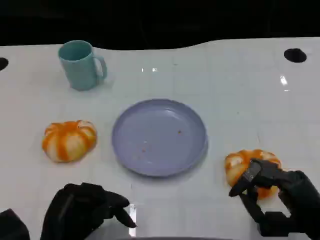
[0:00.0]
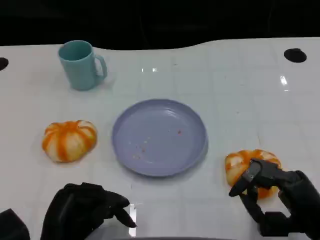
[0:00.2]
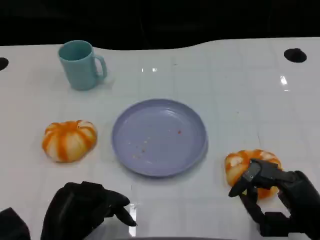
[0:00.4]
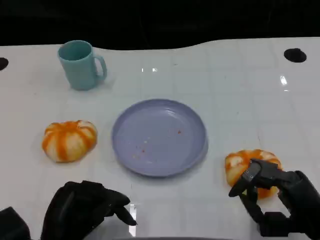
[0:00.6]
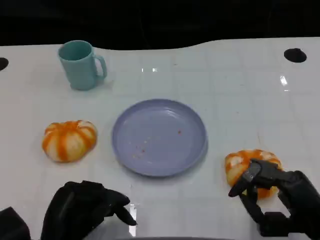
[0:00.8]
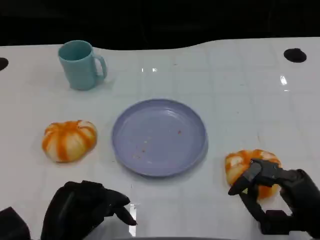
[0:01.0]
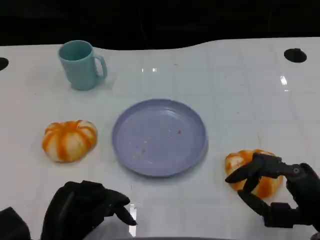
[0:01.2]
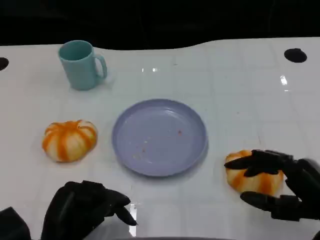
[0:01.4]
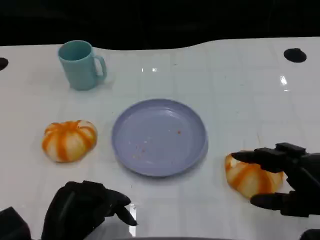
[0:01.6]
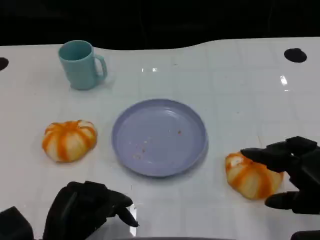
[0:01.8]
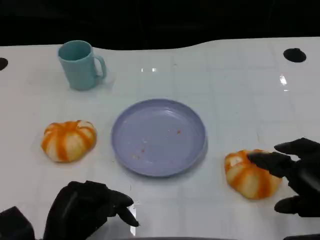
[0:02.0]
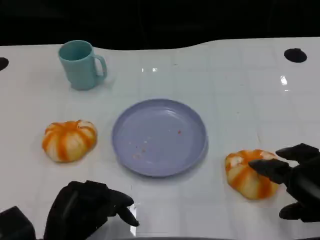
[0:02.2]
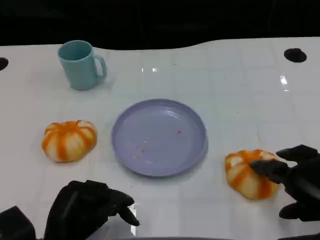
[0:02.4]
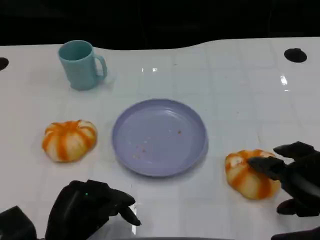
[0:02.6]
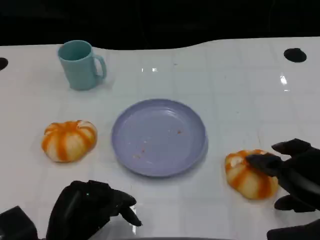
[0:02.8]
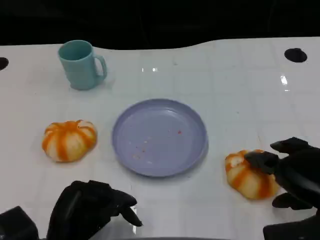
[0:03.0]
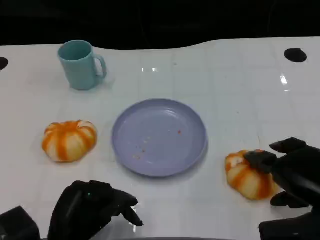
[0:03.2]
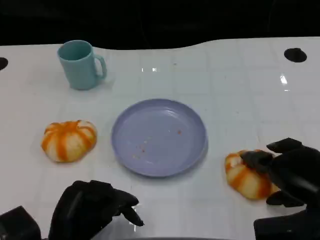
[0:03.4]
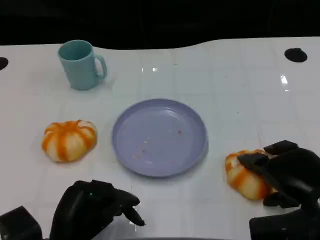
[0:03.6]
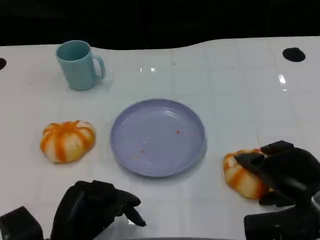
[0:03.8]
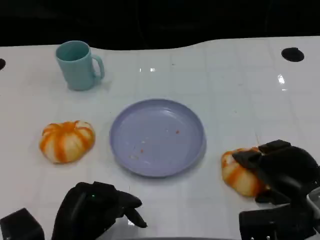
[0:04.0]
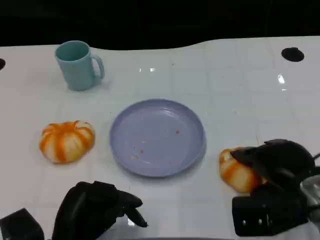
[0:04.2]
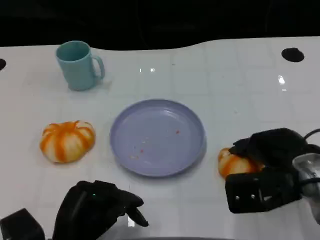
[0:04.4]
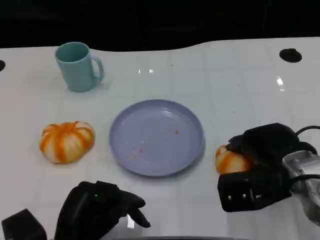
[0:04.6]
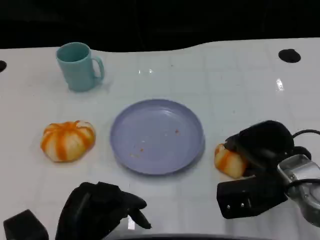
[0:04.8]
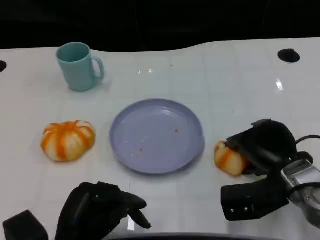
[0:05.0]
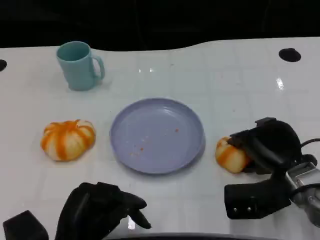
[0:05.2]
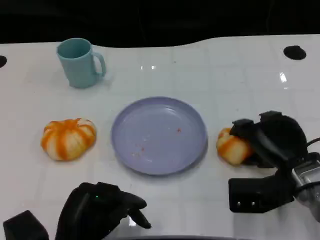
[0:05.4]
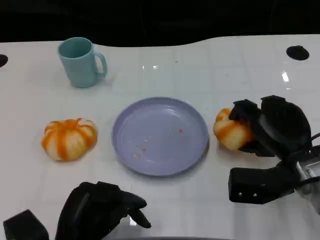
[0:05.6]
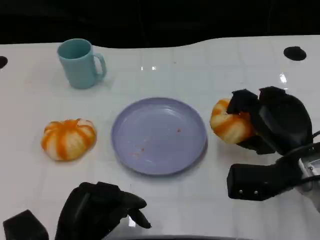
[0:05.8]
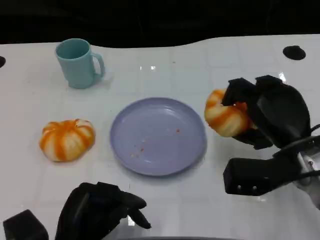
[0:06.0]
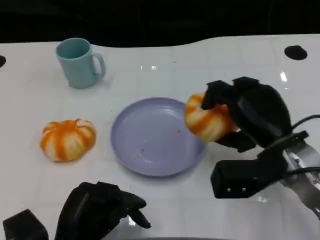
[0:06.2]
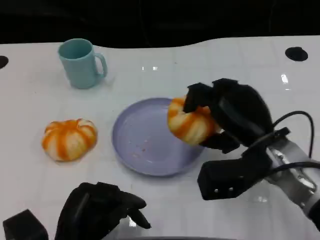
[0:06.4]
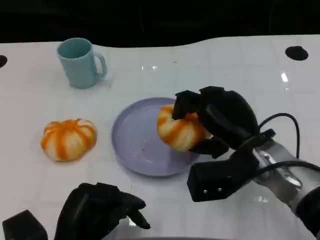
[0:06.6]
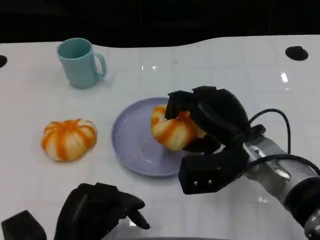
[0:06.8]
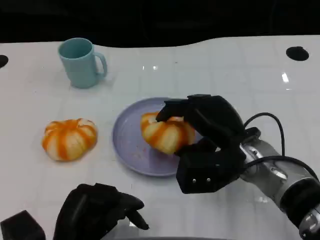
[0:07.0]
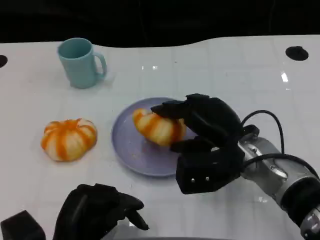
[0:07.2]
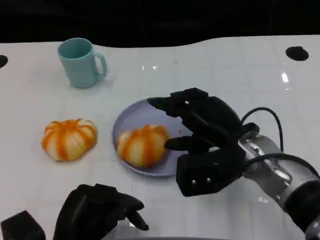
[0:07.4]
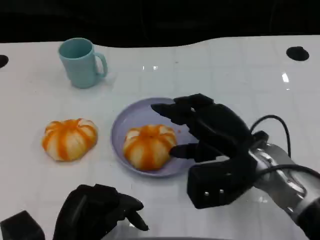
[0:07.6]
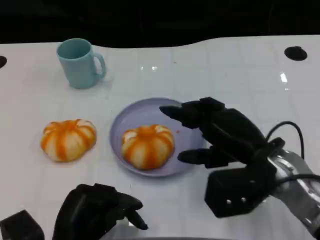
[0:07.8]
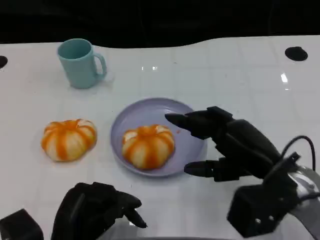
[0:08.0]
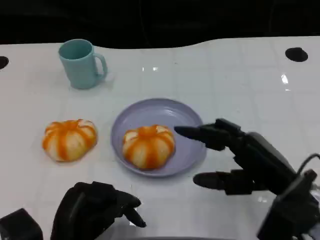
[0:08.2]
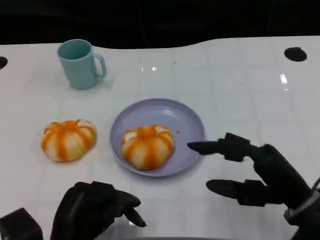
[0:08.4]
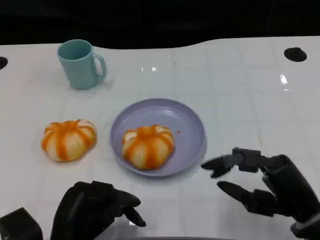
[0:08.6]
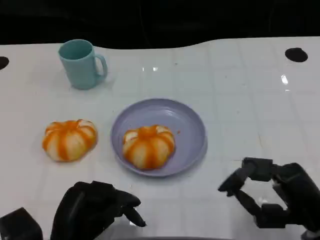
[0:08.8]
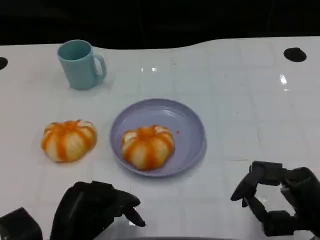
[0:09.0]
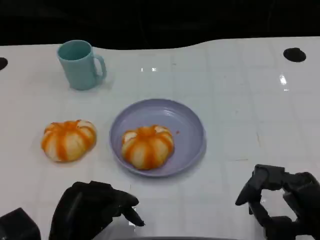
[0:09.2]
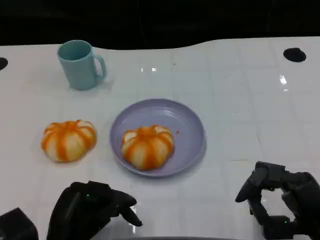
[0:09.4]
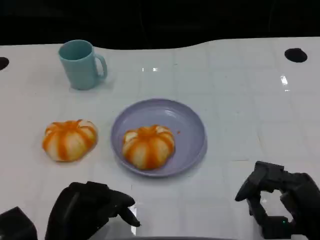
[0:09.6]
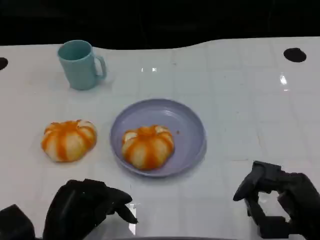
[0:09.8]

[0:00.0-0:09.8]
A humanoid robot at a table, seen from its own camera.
Task of the whole recording: Grasp the bread from the table and place it into the plate.
0:02.8 to 0:04.2: The right hand shifts by approximately 5 cm.
0:05.6 to 0:07.0: The right hand is displaced to the left by about 10 cm.
0:07.0 to 0:08.4: The right hand travels to the right and backward by about 15 cm.
0:08.4 to 0:09.8: The right hand moves approximately 5 cm.

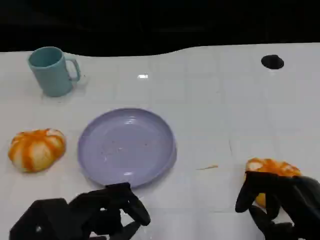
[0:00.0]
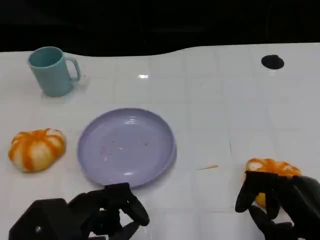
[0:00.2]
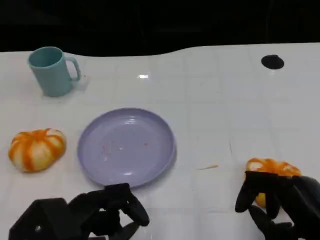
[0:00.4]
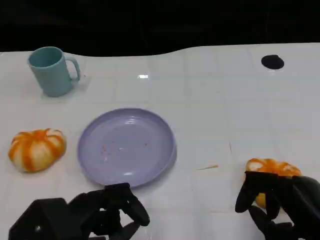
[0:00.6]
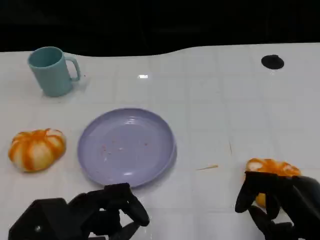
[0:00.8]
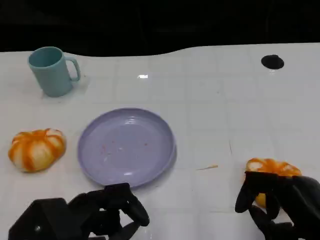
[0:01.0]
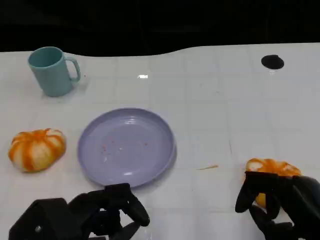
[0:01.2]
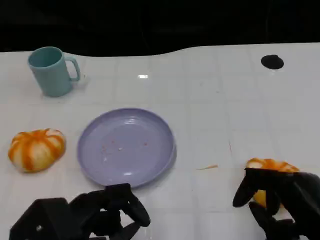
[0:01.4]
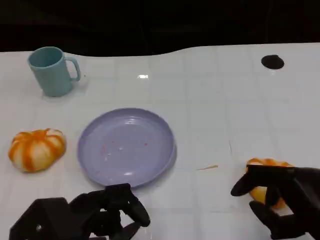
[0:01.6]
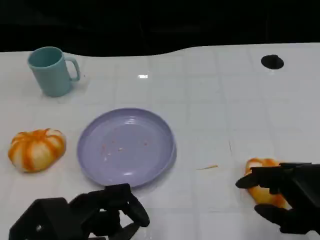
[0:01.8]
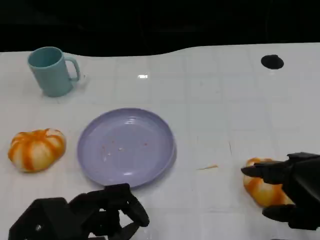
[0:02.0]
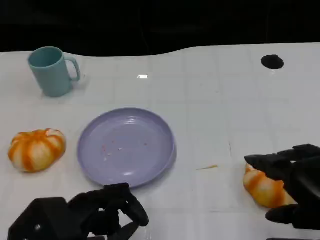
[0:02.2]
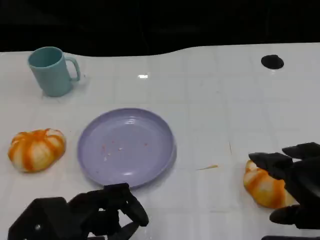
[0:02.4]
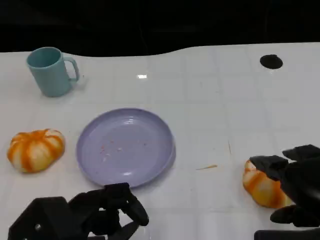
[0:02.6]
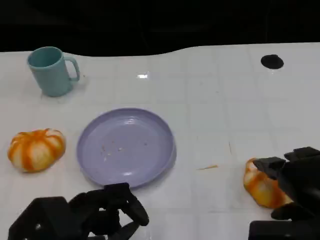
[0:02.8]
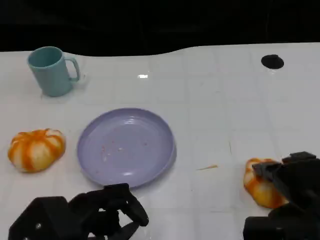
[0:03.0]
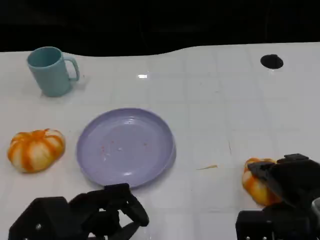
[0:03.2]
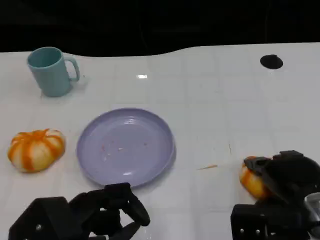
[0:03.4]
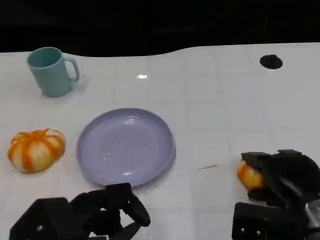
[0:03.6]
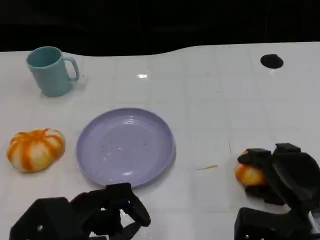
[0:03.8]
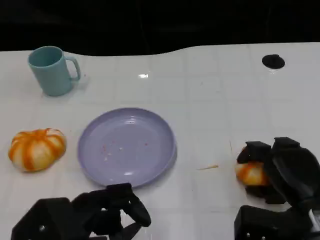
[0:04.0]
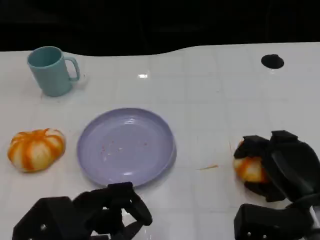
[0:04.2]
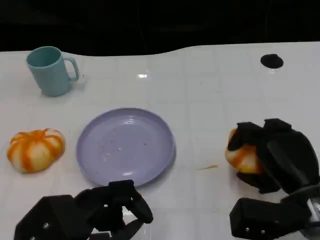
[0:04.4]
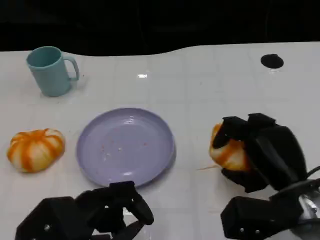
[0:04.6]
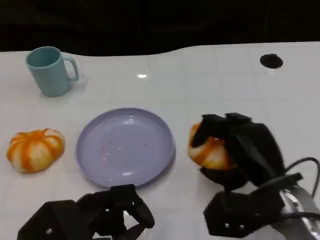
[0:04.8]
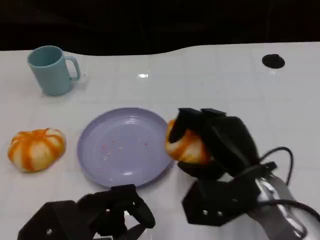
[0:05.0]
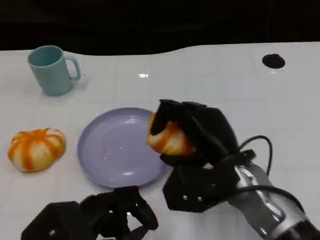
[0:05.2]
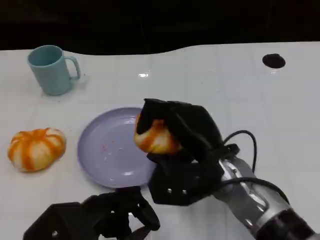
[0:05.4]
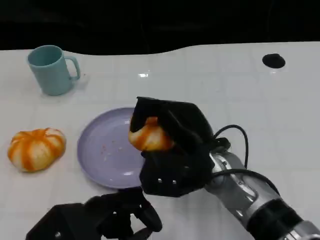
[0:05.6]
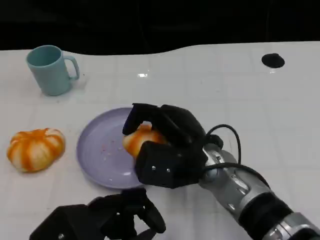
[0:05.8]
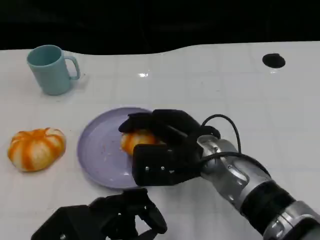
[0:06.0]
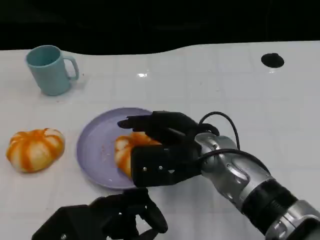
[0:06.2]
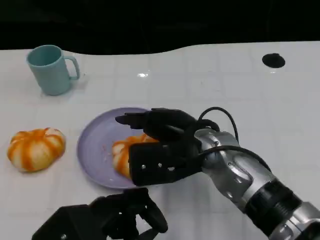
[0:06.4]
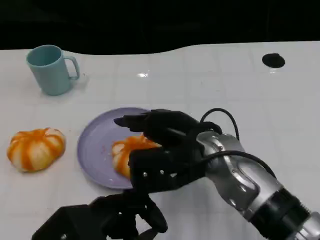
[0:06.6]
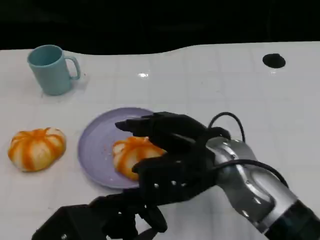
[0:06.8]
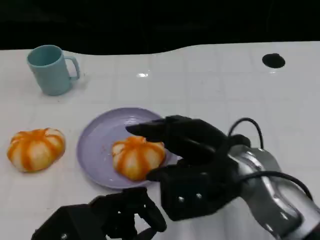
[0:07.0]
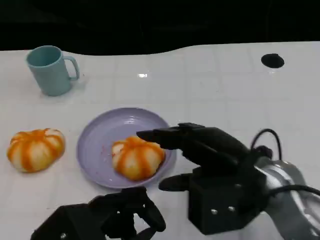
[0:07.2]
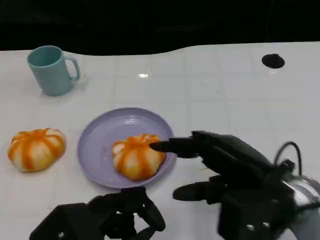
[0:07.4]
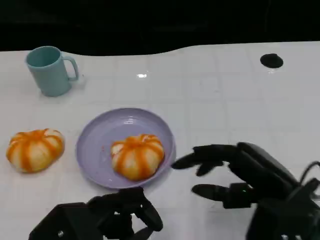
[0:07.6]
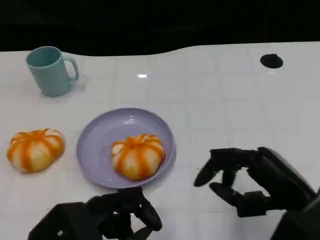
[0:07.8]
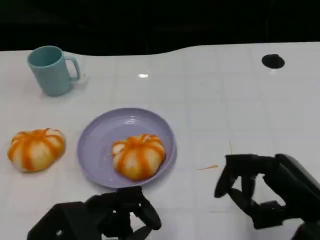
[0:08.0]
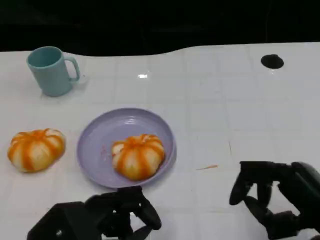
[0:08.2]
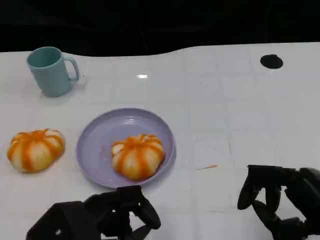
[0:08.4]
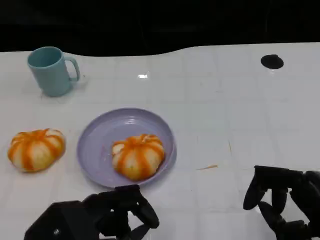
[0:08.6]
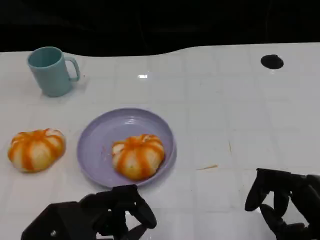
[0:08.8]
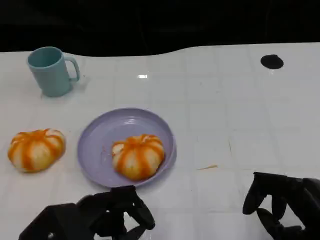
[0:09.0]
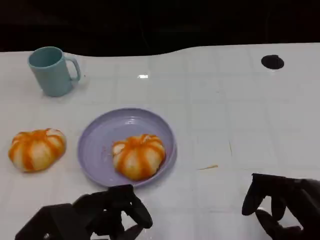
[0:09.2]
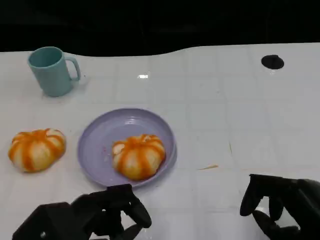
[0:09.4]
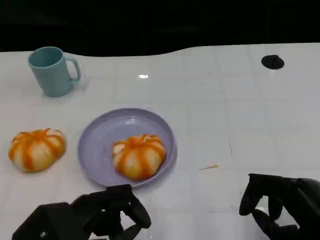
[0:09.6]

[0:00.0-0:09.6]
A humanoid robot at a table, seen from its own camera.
Task of the whole recording: Grasp the bread from the table and place it into the plate.
0:00.0 to 0:01.6: There are only small adjustments of the hands.
0:01.6 to 0:03.2: The right hand travels forward by some 5 cm.
0:03.2 to 0:04.8: The right hand shifts about 5 cm to the left.
0:04.8 to 0:06.4: The right hand is displaced to the left by some 10 cm.
0:06.4 to 0:08.0: The right hand moves to the right and backward, approximately 20 cm.
0:08.0 to 0:09.6: There are only small adjustments of the hands.

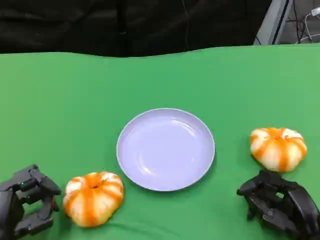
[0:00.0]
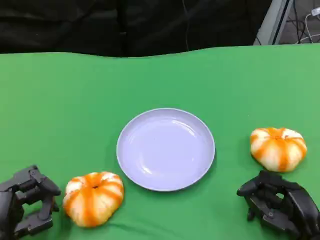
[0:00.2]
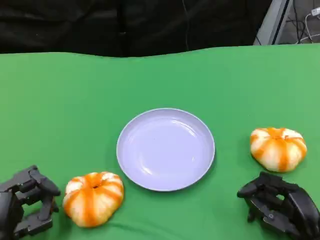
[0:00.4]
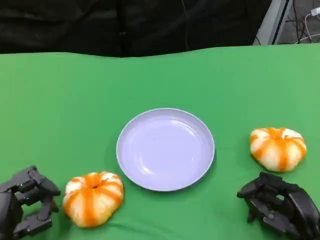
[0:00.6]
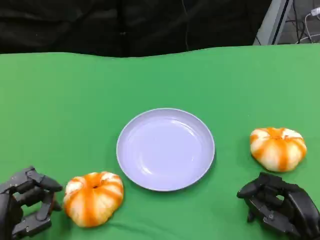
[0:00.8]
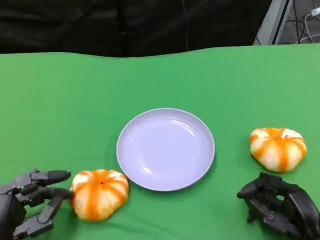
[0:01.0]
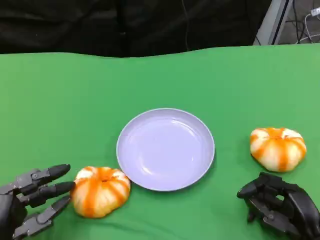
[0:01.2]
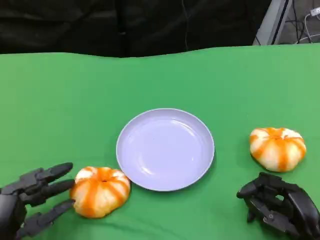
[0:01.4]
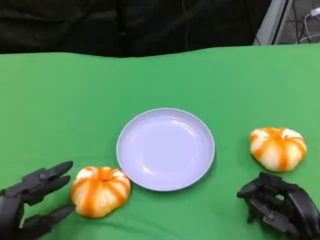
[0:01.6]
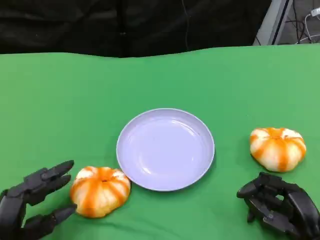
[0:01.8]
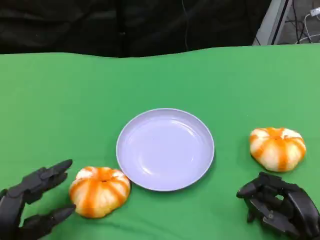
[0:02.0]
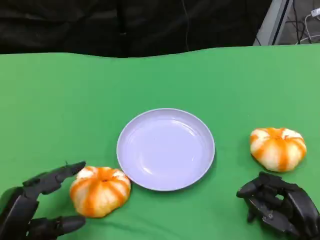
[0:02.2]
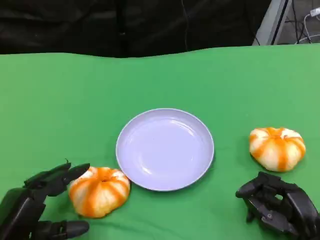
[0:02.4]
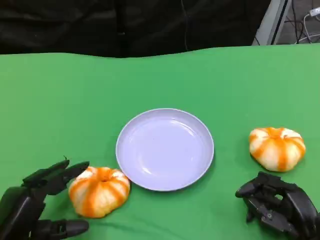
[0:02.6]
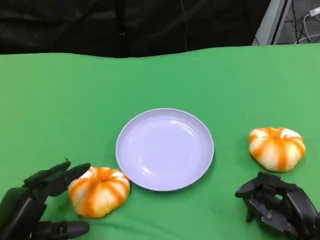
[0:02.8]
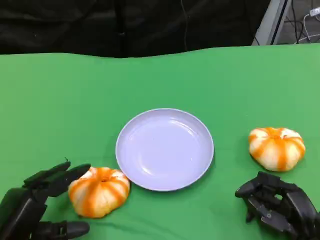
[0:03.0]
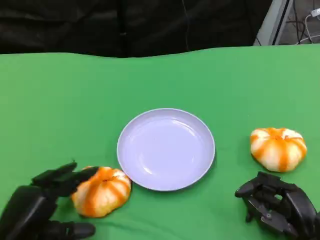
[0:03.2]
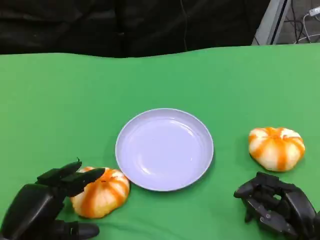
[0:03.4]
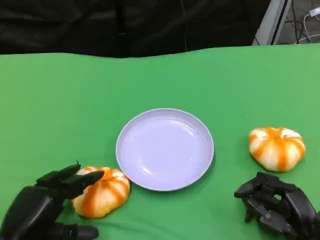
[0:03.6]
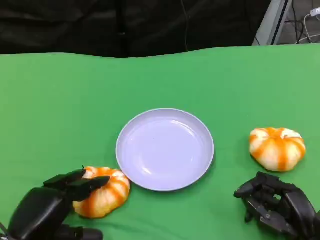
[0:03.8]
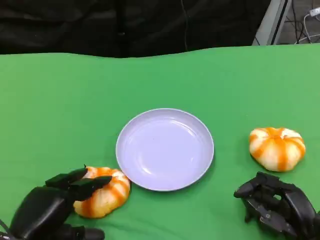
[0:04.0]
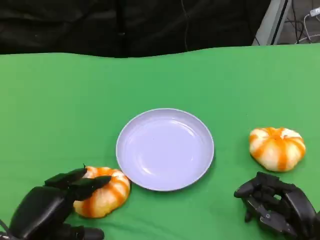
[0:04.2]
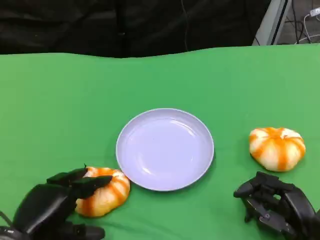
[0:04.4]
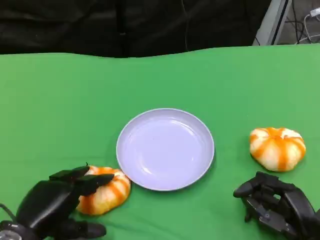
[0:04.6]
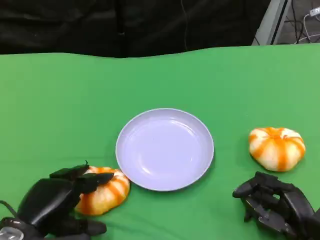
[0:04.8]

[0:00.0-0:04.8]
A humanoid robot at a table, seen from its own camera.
Task of the whole recording: Grasp the bread from the table and place it into the plate.
0:00.0 to 0:01.6: The hands stay close to where they were, moving slightly.
0:03.2 to 0:04.8: The hands stay close to where they were, moving slightly.
